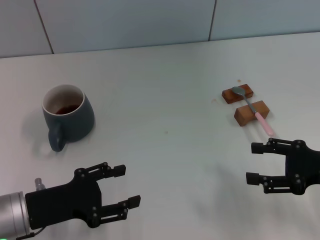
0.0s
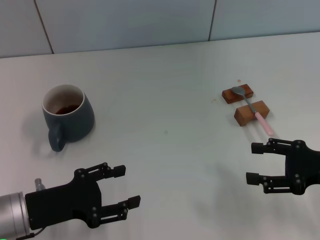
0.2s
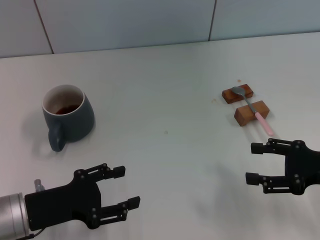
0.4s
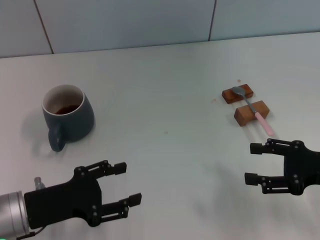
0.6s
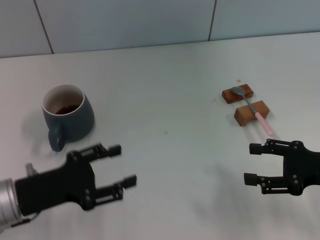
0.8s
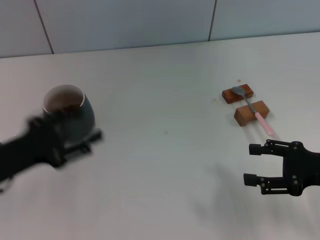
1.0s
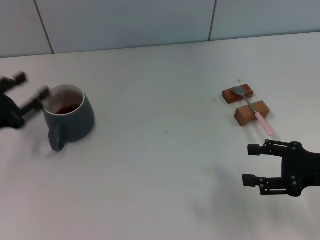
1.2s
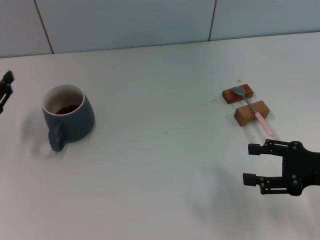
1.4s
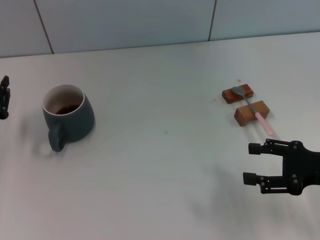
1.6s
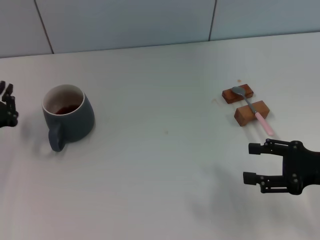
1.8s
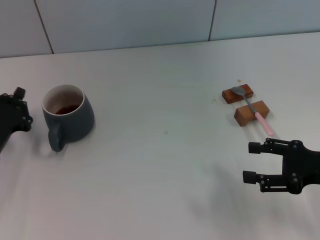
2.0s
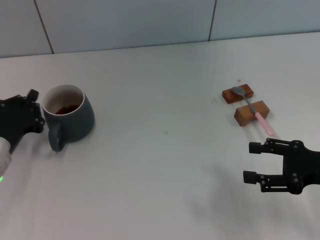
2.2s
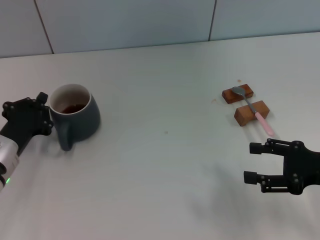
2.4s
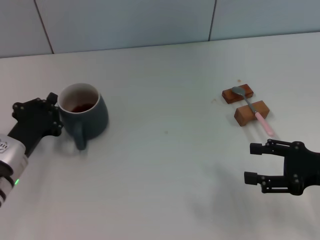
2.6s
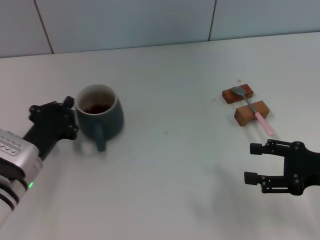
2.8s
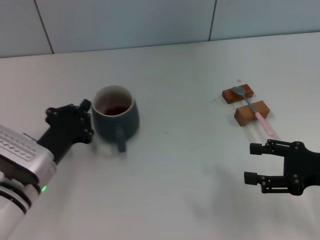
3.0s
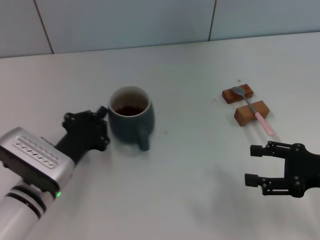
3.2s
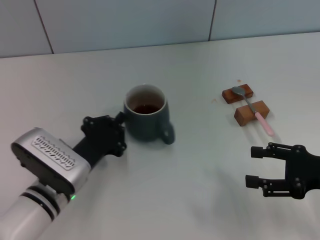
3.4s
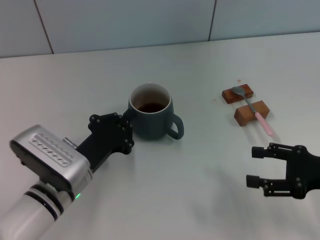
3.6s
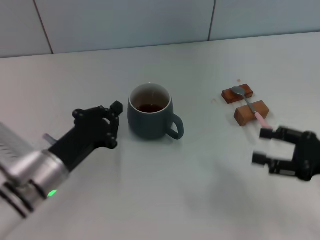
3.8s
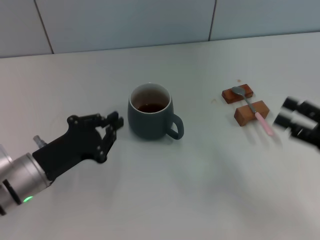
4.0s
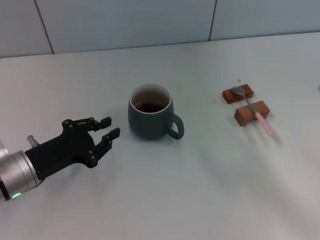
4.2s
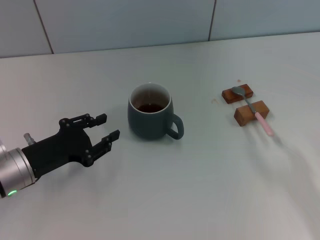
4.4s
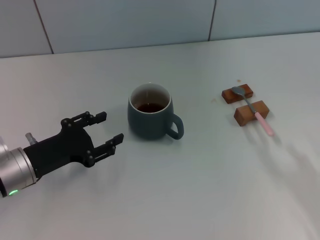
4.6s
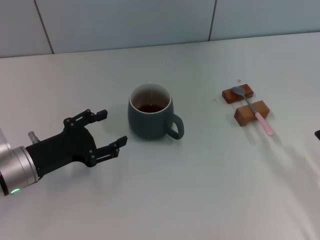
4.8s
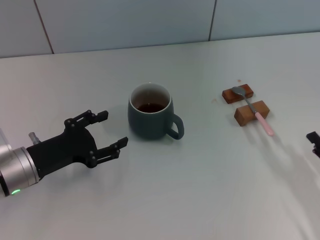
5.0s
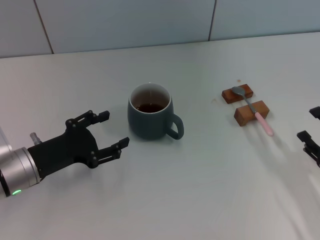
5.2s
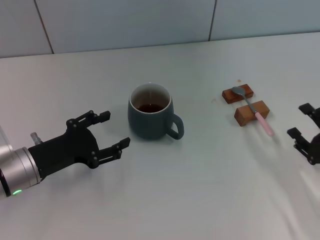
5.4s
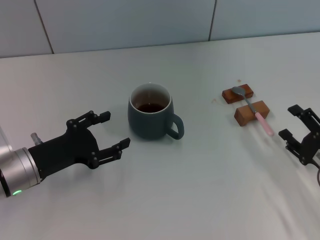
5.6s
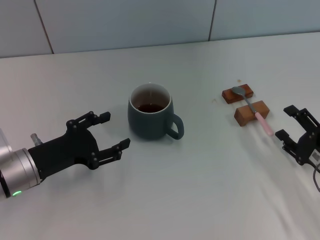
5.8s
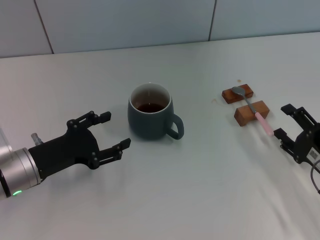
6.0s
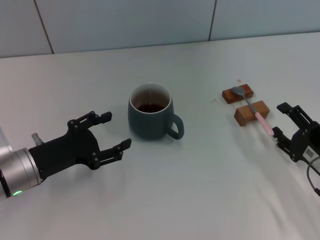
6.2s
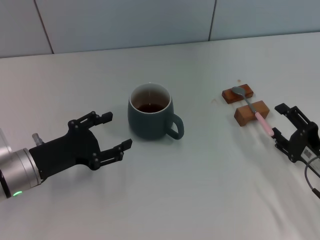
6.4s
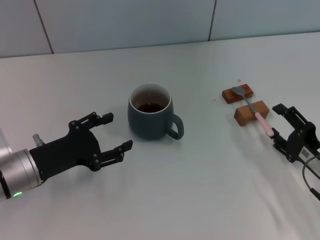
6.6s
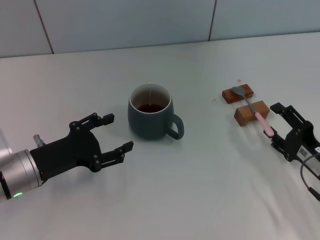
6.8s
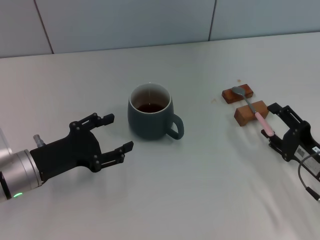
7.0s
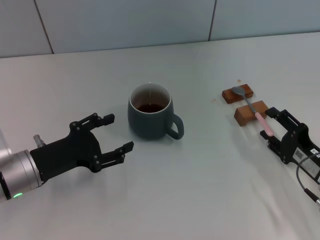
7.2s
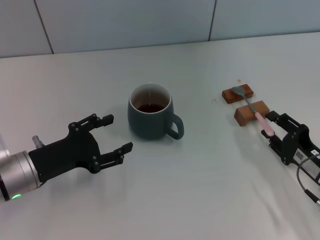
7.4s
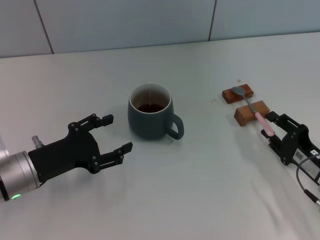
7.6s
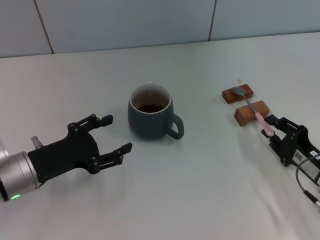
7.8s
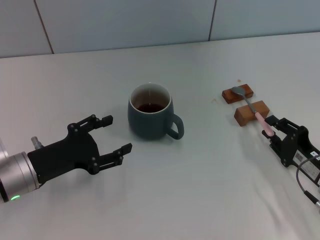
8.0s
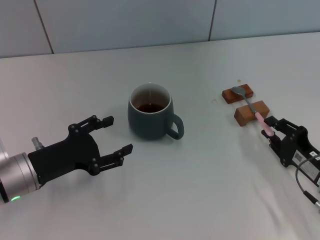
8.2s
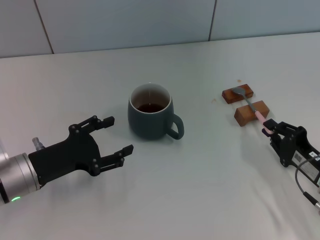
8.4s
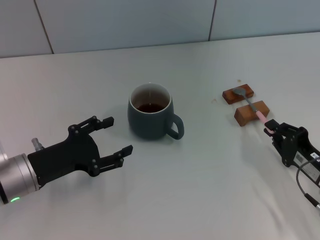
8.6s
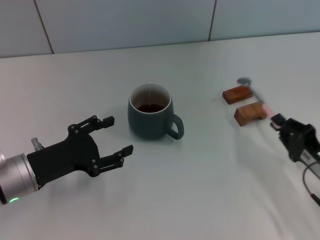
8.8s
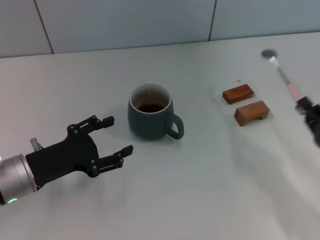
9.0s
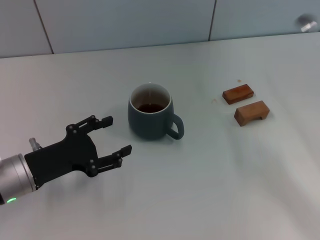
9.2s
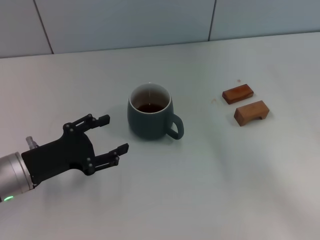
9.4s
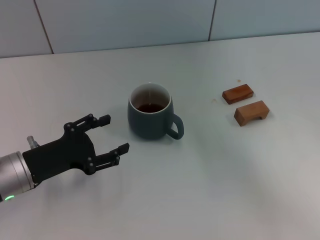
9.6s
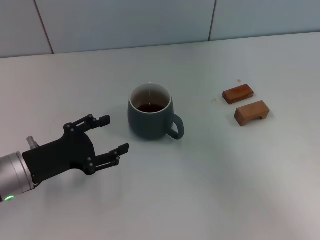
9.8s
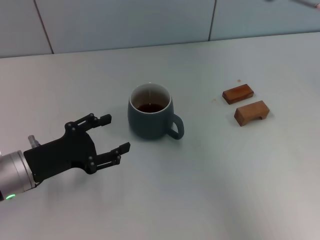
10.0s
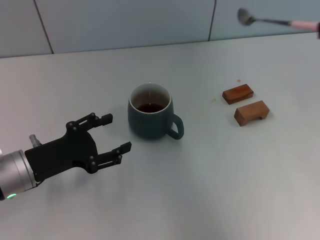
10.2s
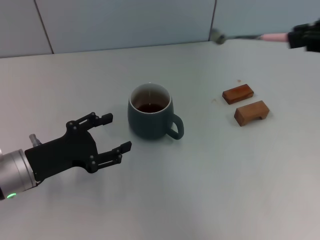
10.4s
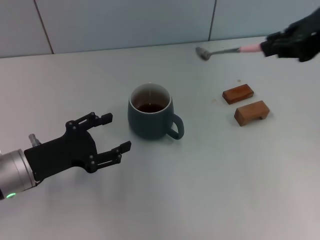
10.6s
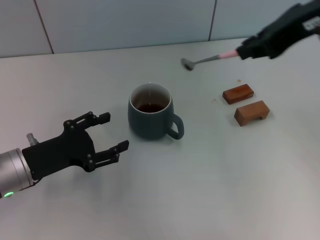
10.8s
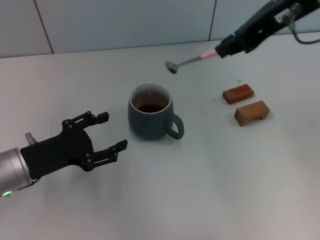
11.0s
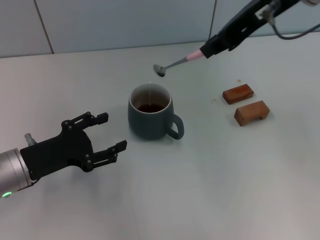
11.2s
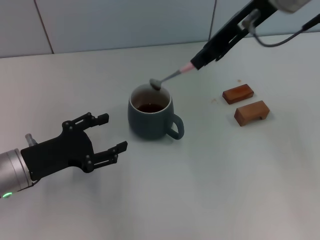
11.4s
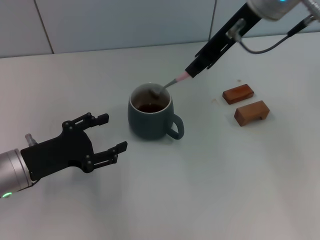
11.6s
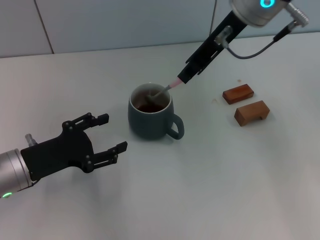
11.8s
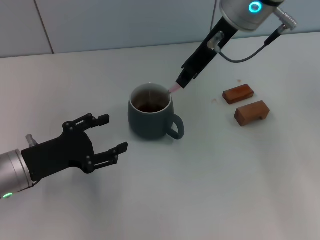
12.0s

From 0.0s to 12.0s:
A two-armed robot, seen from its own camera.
Task of the whole recording: Move the grey cup to the center, lift the pink spoon, stir it three times in the cup, and put the spoon into the cup.
Step, from 0.0s to 3.8s: Move the cup with coffee to the center of view with the left gripper.
Step, from 4.0s to 8.8s: Pick up the spoon with the right gripper.
From 0.0s to 1.6s: The left gripper shifts approximately 10 cm to the left and forward, and closes its fingers.
From 1.6s to 3.0s: The left gripper goes about 10 cm to the right, and closes up.
From 3.0s to 4.4s: The right gripper shifts roughly 5 cm backward.
From 4.4s to 6.0s: The right gripper goes roughly 5 cm to the left. Meanwhile the left gripper opens.
From 6.0s to 7.6s: The right gripper closes up.
From 7.6s to 9.0s: The right gripper closes.
From 9.0s to 10.4s: The right gripper is displaced upward by about 30 cm.
From 10.4s to 12.0s: The right gripper goes roughly 20 cm to the left and forward.

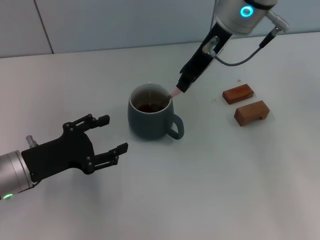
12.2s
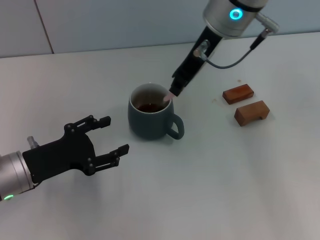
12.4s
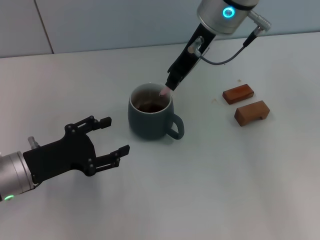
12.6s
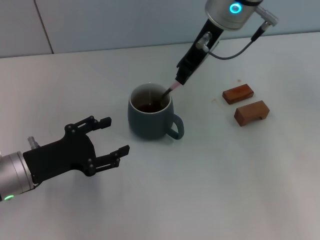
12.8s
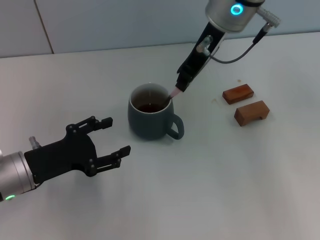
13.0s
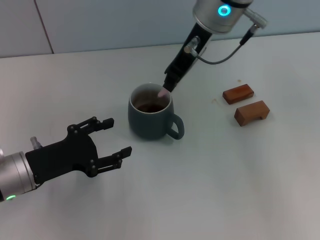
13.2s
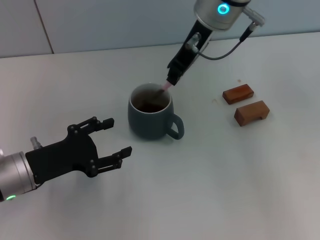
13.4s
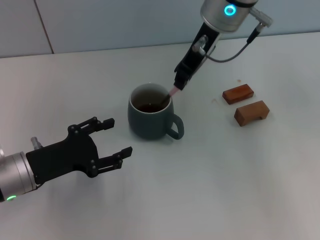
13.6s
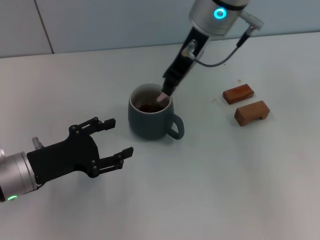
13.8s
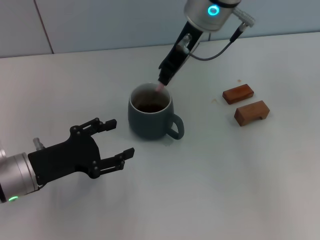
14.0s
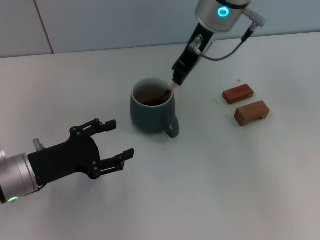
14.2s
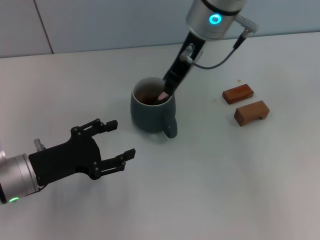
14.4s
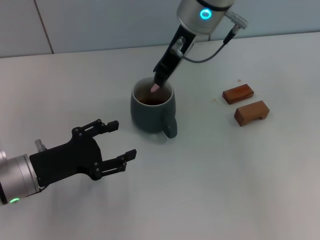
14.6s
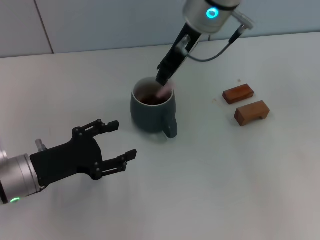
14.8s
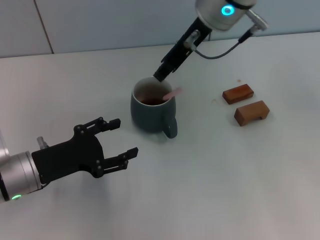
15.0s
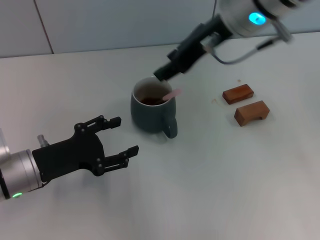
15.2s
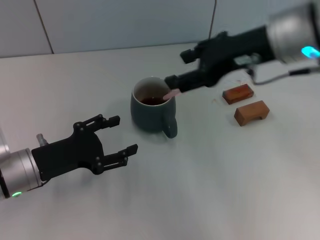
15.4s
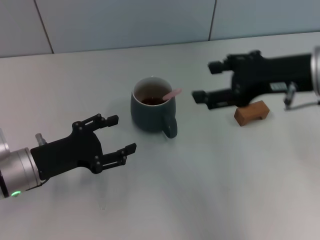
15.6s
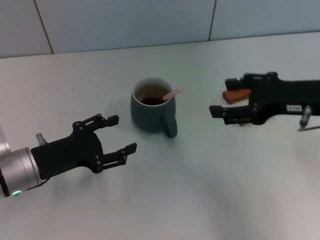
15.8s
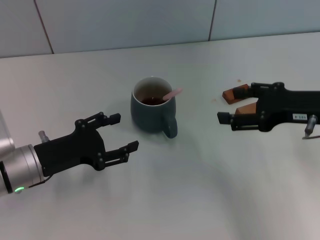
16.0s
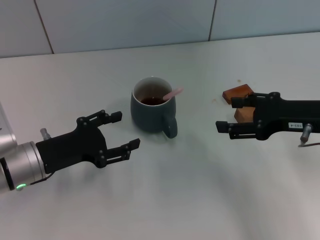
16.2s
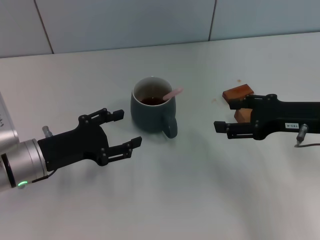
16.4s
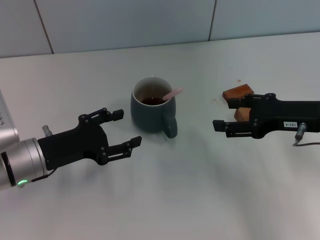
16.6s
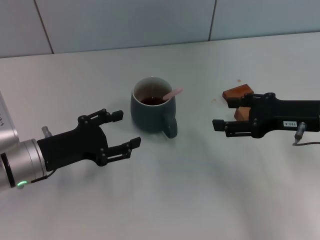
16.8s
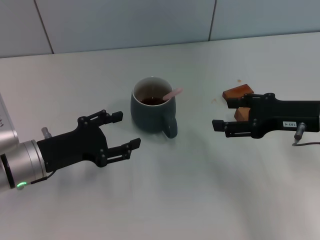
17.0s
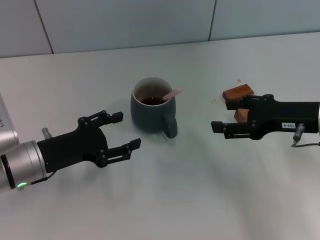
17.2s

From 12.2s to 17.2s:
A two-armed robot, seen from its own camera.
Task of the whole recording: Move the grey cup to the center, lift the pink spoon, stir it three times in the cup, and put the spoon into the cup.
Step, from 12.2s to 15.2s: Stir the coffee in the cup with the right gripper.
From 12.2s to 13.8s: The grippers move only a little.
From 13.8s to 15.6s: The right gripper travels to the right and backward by about 20 cm, and opens its fingers.
From 15.6s to 17.2s: The right gripper is displaced downward by about 10 cm.

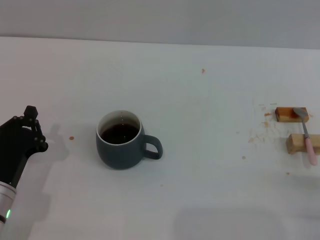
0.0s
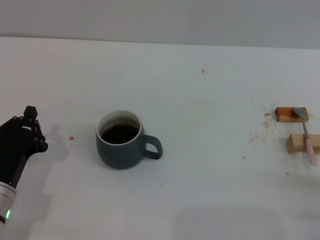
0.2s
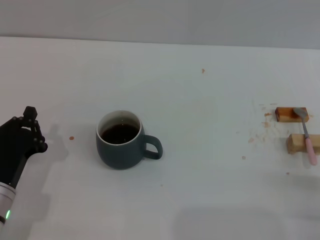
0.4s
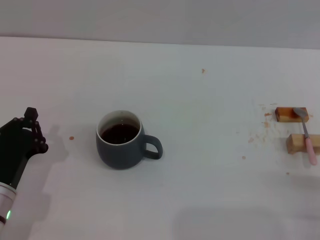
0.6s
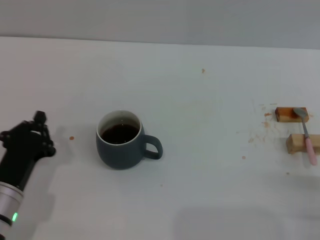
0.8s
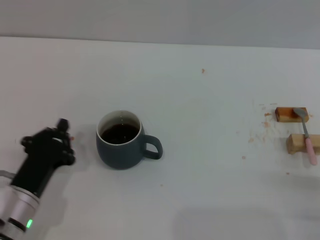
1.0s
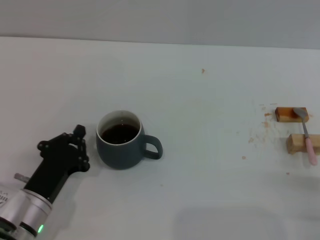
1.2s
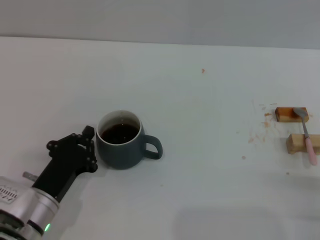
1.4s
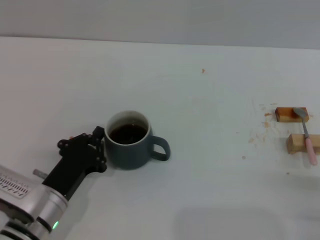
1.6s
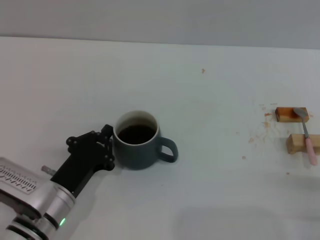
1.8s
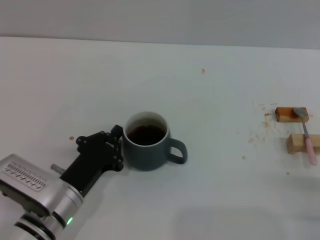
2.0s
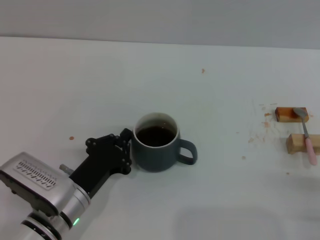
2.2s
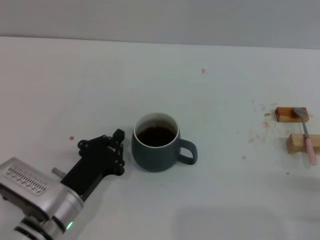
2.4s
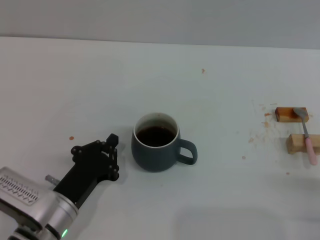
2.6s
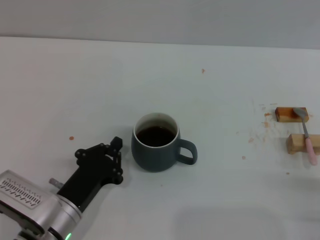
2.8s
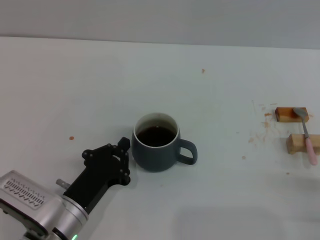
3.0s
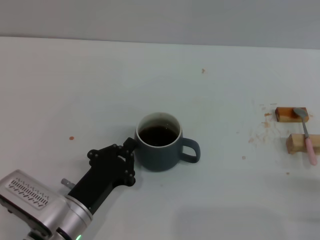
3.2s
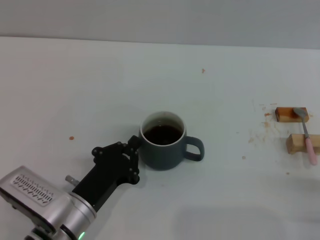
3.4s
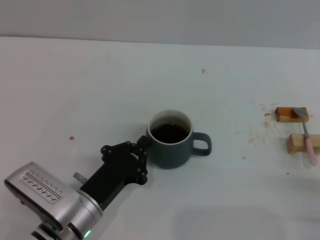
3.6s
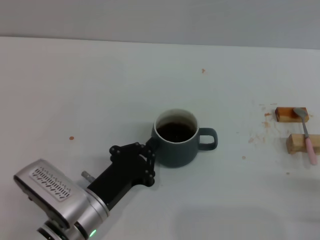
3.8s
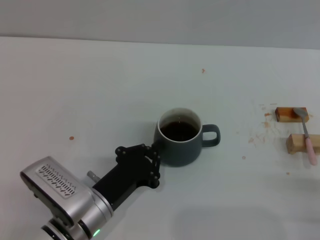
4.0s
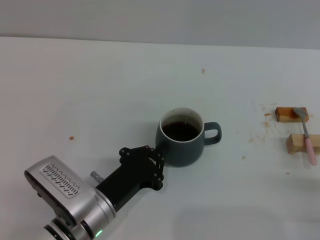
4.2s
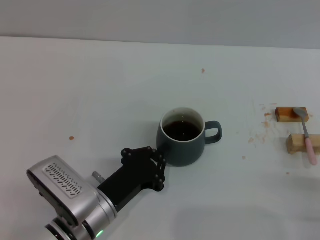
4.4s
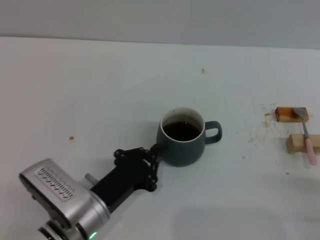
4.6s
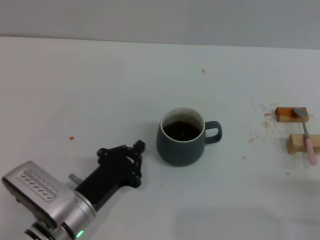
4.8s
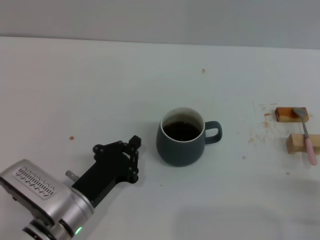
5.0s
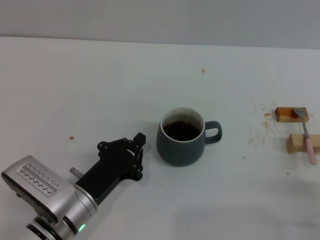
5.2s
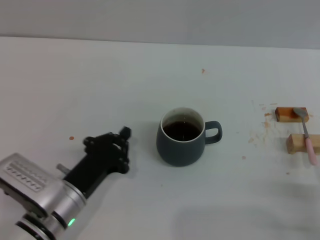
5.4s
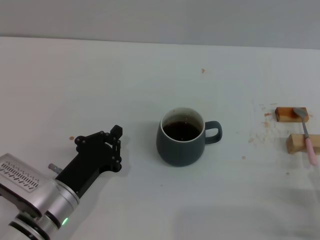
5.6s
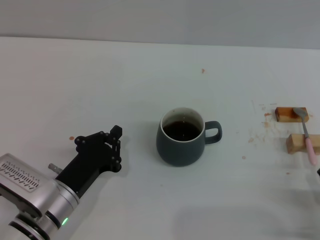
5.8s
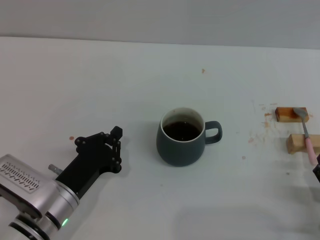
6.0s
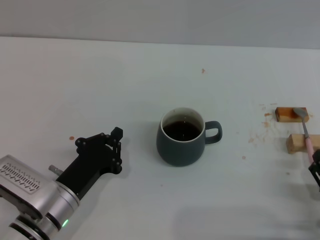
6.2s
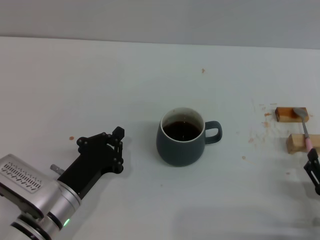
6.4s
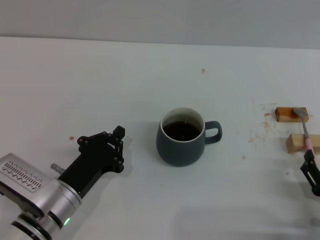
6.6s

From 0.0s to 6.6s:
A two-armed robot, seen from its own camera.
Task of the whole recording: Move the grey cup to the center, lift the pink spoon, stir it three times in the cup, and put the spoon into the cup.
Step, from 0.0s to 5.6s: Move the cup with coffee to the center of view with the left gripper.
From 0.0s to 1.6s: The left gripper moves to the right, some 5 cm.
From 1.6s to 6.6s: The grippers stay close to where they were, moving slightly.
